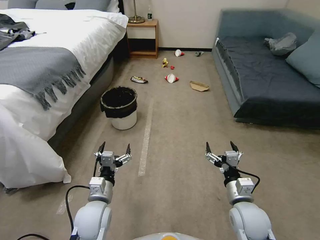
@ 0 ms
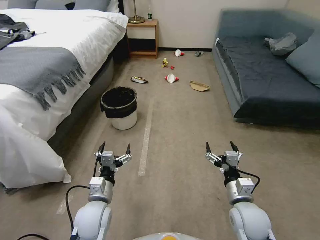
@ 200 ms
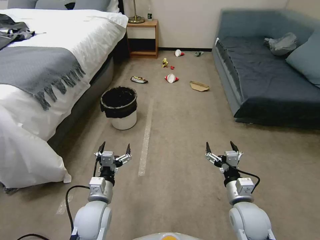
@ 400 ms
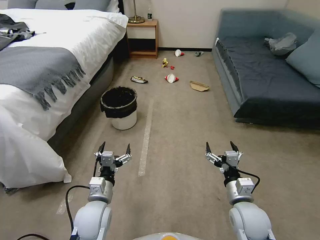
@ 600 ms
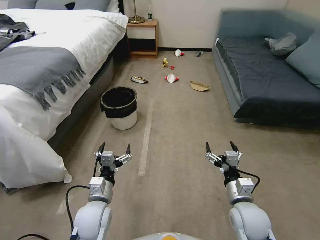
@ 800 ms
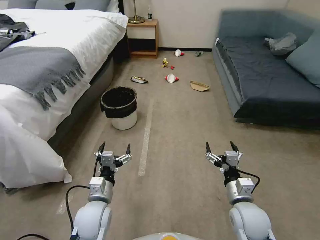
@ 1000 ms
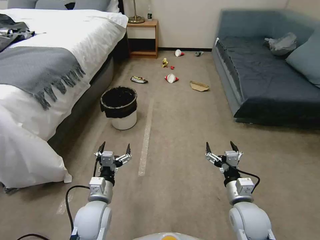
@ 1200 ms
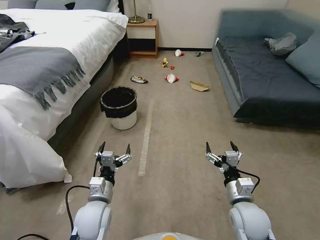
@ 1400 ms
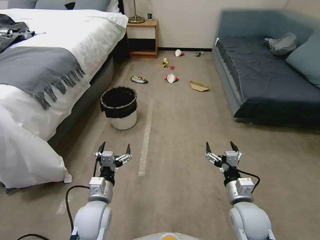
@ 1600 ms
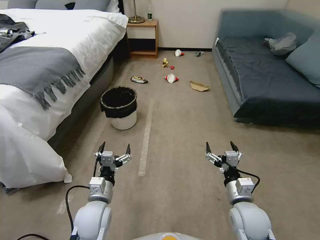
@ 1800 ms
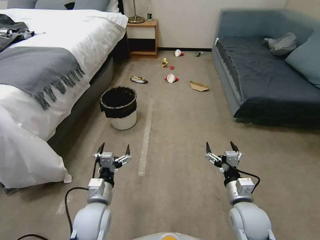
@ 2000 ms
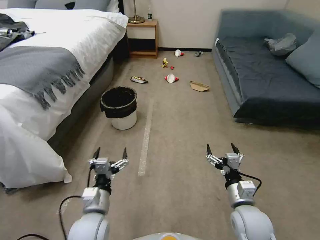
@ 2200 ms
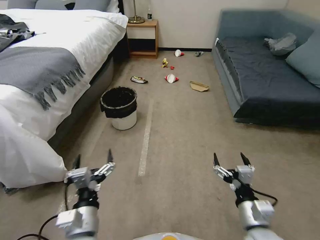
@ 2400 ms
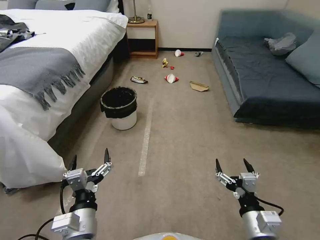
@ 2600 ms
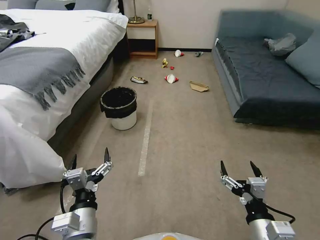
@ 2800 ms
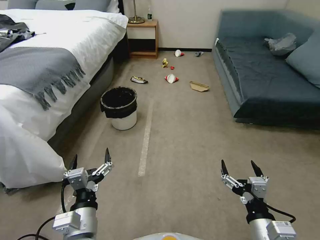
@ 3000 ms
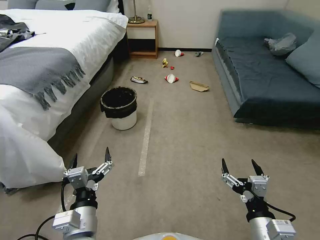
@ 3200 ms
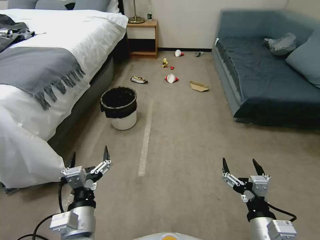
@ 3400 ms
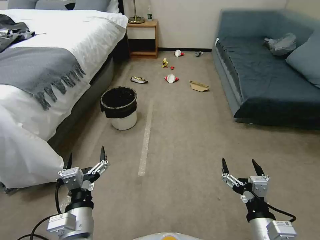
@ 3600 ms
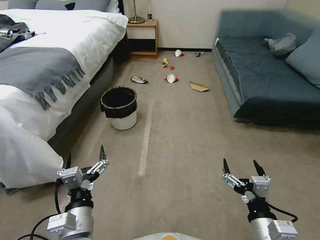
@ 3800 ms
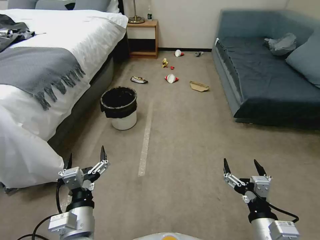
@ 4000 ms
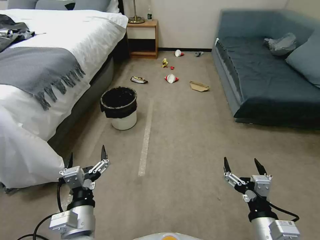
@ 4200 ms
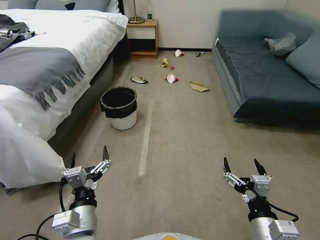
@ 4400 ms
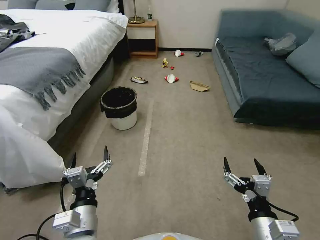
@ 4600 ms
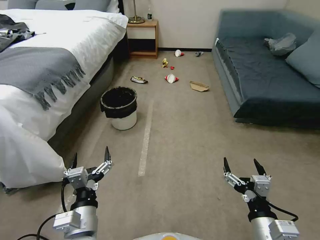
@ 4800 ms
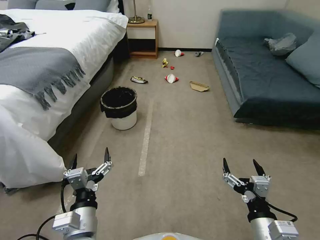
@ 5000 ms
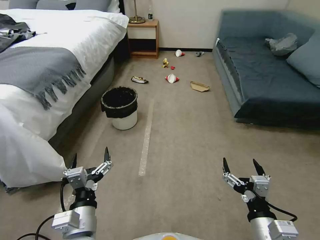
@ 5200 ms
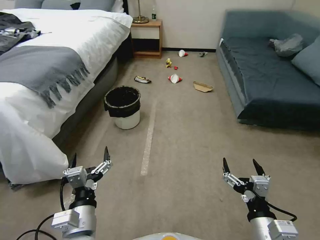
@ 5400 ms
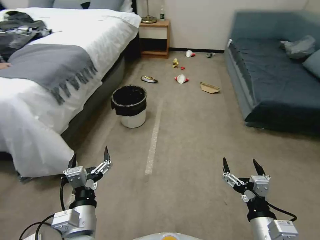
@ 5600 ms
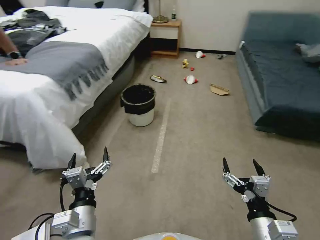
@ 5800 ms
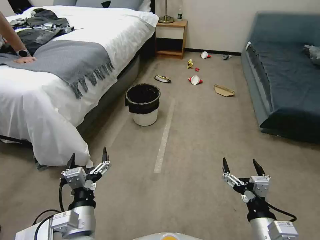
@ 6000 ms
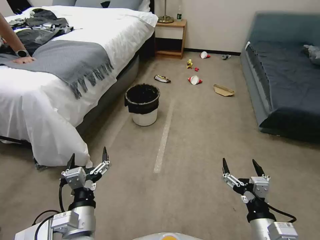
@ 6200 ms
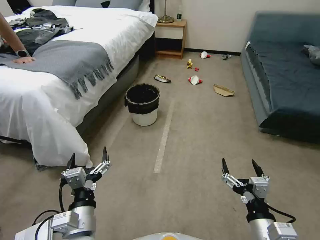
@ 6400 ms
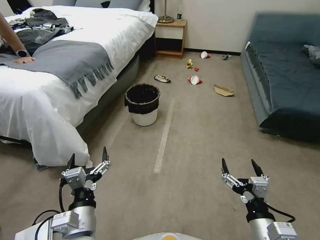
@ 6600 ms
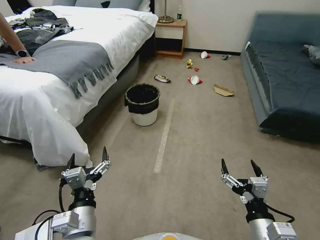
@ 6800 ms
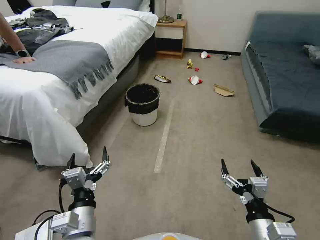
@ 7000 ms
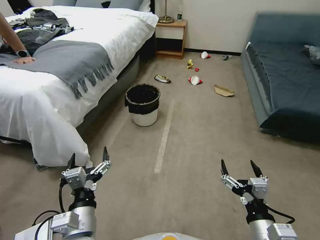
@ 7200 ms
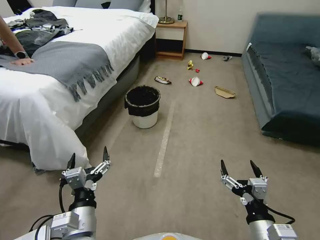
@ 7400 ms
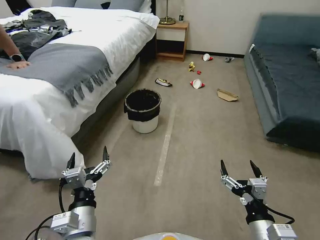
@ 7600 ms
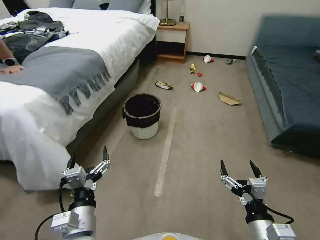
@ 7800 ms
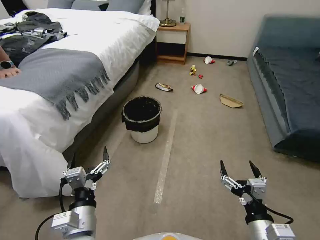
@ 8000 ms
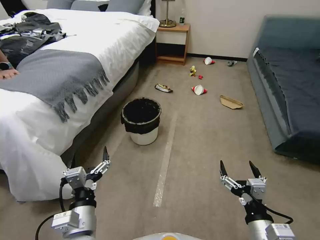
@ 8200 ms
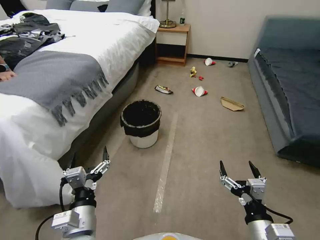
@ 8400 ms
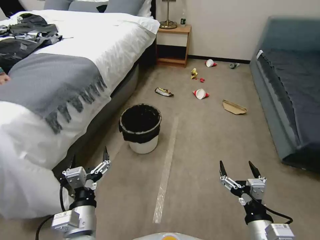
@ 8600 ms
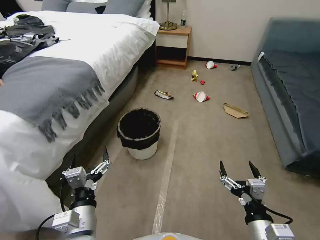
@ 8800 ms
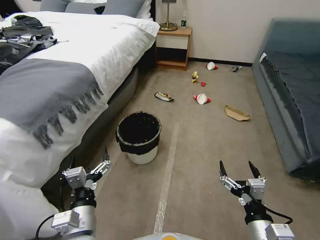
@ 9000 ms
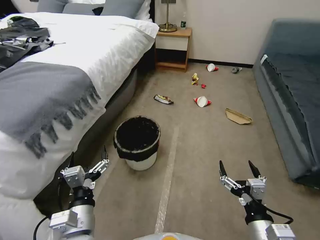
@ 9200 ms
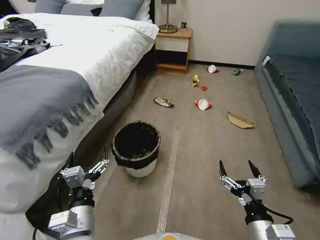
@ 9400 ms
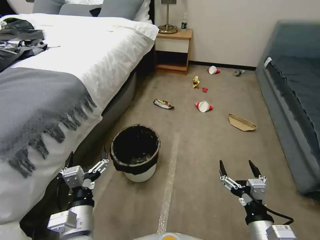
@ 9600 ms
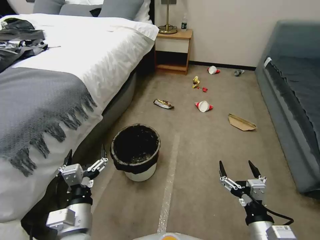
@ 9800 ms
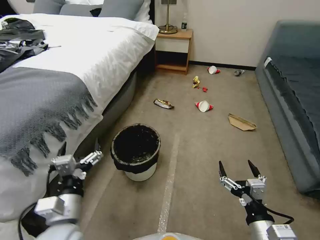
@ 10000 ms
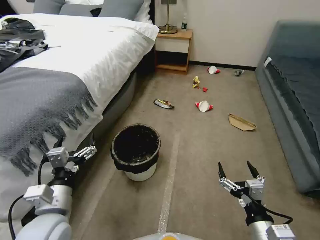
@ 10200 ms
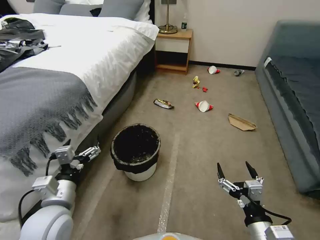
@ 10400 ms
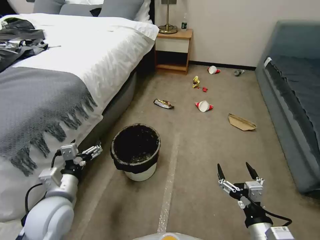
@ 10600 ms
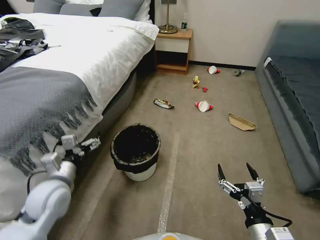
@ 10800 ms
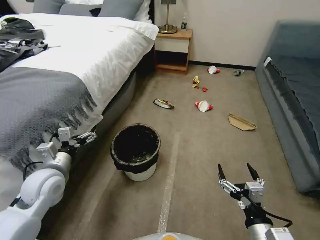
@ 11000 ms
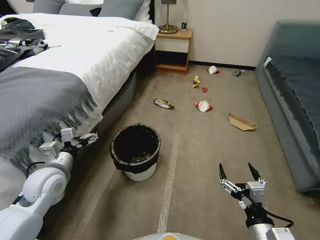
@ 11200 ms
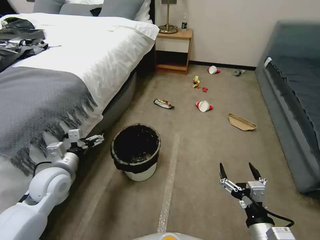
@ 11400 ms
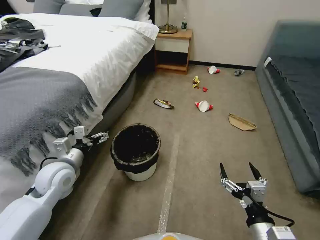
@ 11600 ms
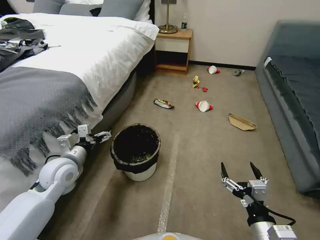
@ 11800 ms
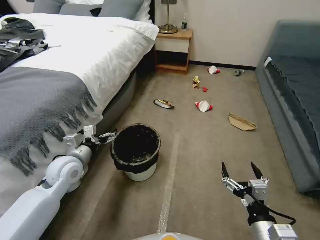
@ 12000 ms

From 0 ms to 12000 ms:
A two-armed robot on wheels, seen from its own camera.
Task of the whole recording: Pick up the trash can from the floor.
From 1600 ms to 3000 ms: The two grippers go about 10 cm backward and upward.
From 3000 ms to 4400 ms: Both grippers stay about where they are.
From 9000 ms to 10400 ms: The left gripper shifts about 5 cm to the left.
From 10400 ms to 12000 ms: The left gripper moves forward, approximately 15 cm.

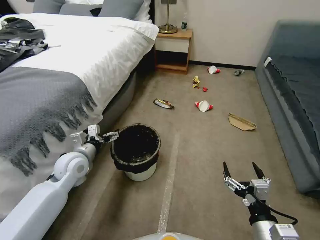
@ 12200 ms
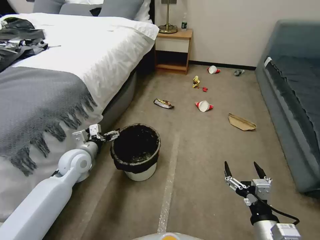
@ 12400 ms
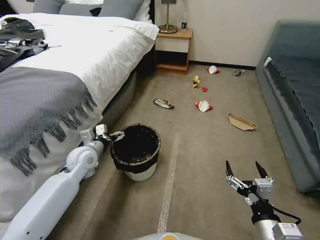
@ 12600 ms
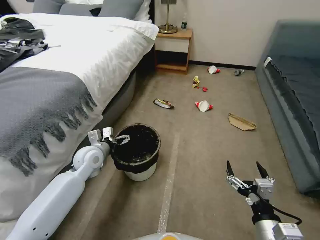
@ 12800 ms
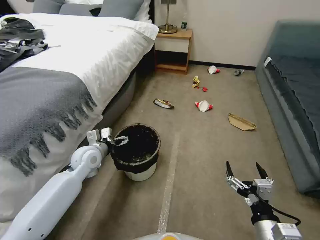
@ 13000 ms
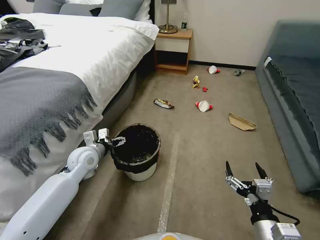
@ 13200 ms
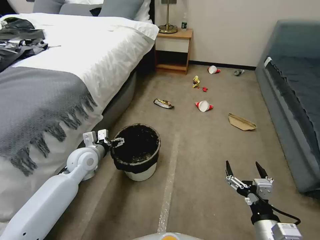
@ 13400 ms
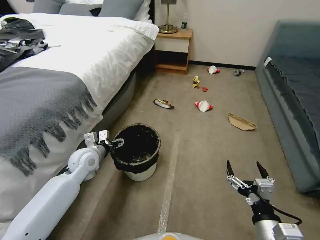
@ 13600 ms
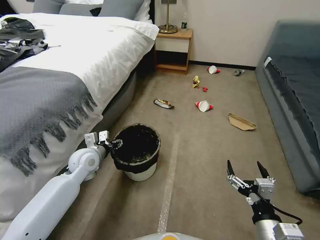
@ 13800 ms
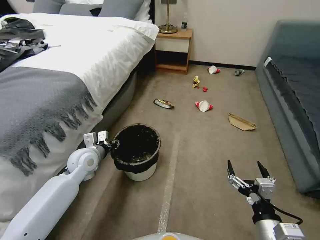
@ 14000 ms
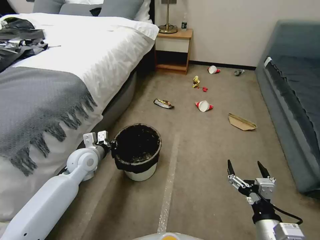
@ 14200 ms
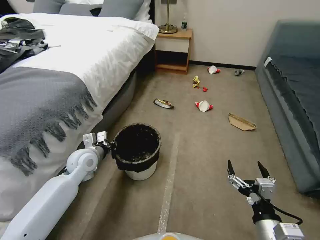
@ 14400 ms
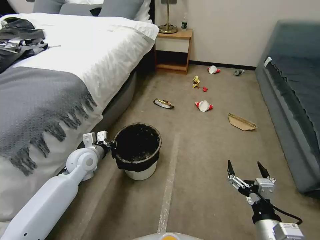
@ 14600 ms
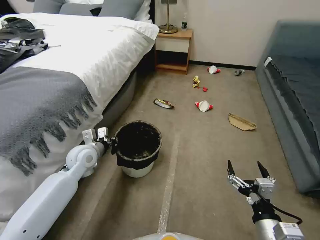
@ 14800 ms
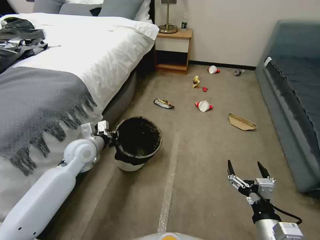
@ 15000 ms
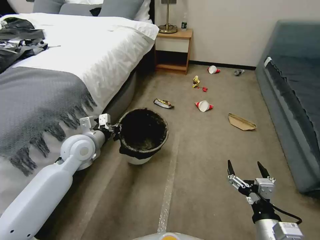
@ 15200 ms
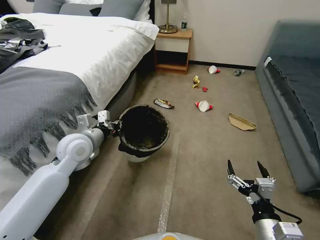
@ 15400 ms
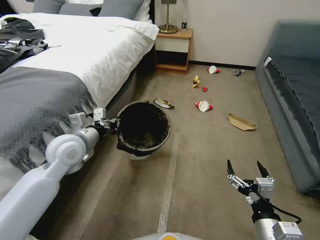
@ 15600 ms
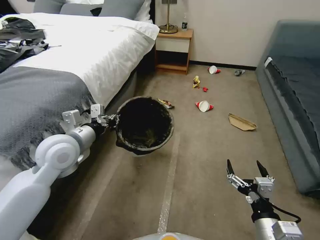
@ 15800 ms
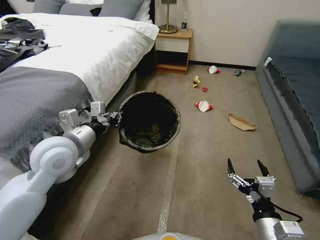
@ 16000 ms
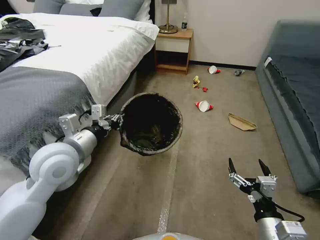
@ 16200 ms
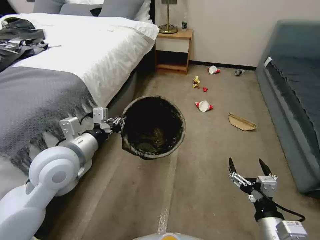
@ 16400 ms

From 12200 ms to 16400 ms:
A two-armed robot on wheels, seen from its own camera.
Task of the whole recording: Pick up the trash can from the floor.
From 12200 ms to 13600 ms: The grippers make only small movements.
From 13600 ms to 15000 ms: The left gripper closes.
From 15000 ms to 16400 ms: The left gripper goes some 15 cm upward and backward.

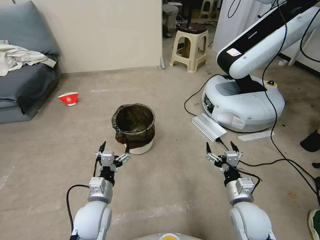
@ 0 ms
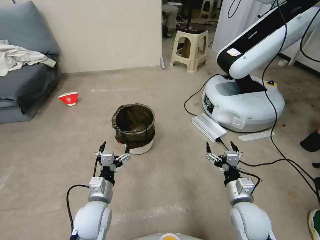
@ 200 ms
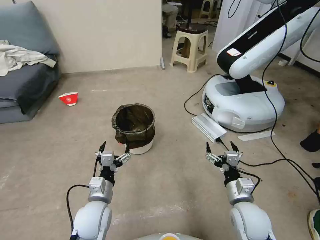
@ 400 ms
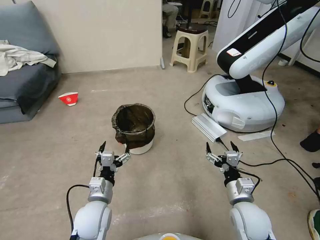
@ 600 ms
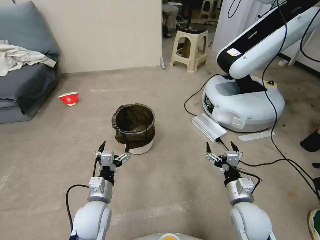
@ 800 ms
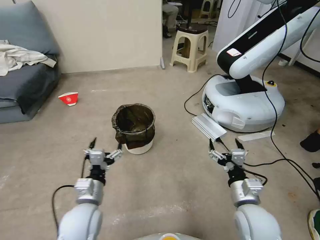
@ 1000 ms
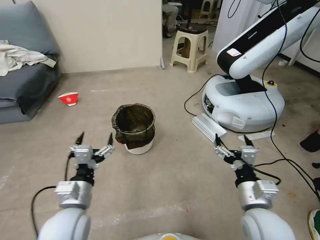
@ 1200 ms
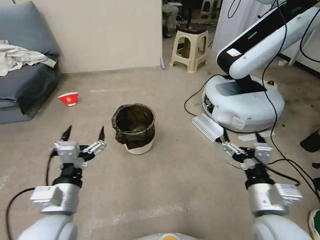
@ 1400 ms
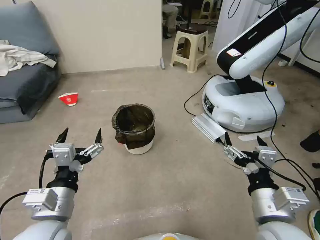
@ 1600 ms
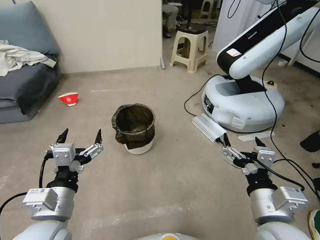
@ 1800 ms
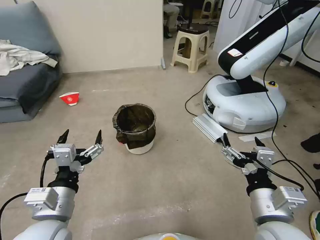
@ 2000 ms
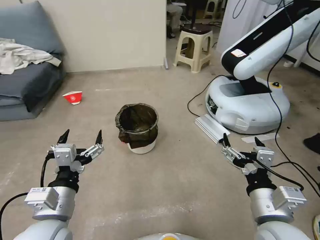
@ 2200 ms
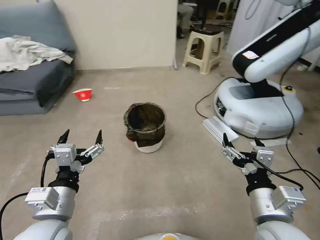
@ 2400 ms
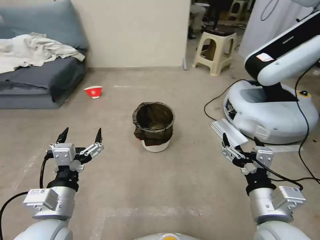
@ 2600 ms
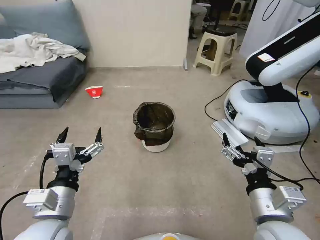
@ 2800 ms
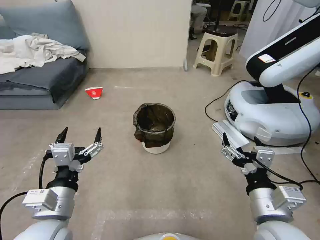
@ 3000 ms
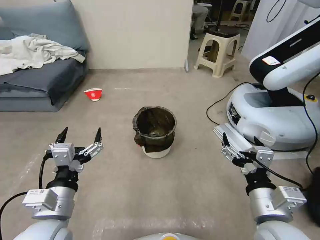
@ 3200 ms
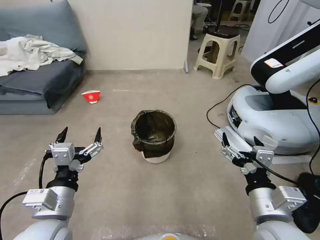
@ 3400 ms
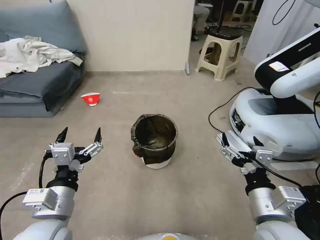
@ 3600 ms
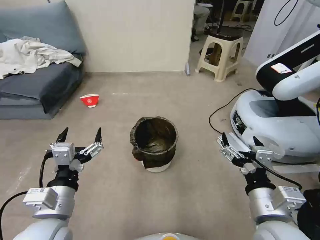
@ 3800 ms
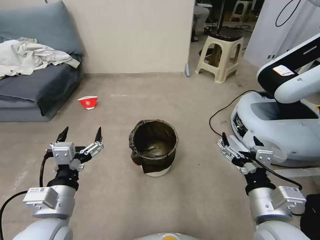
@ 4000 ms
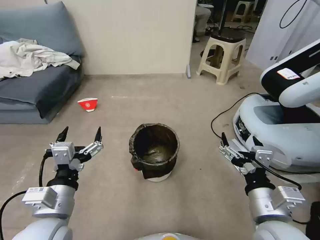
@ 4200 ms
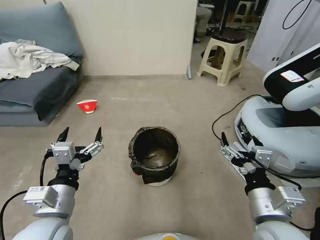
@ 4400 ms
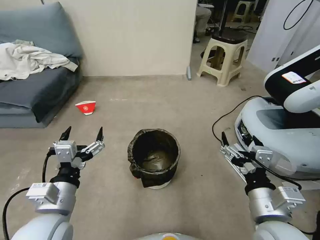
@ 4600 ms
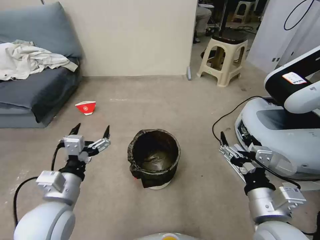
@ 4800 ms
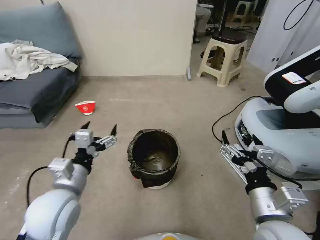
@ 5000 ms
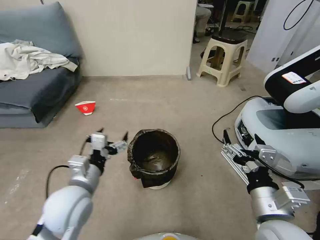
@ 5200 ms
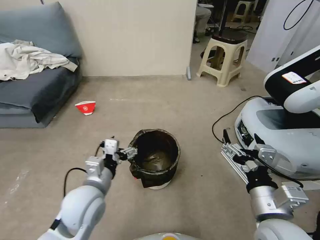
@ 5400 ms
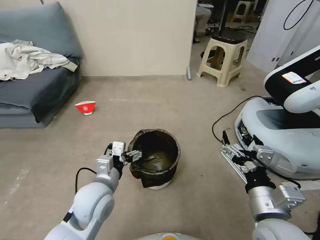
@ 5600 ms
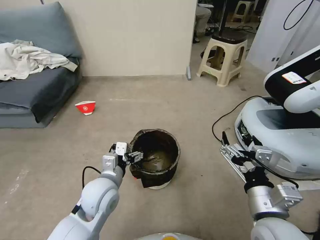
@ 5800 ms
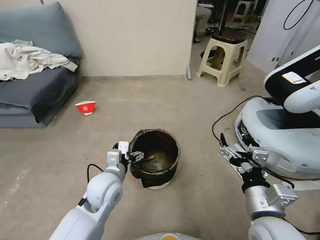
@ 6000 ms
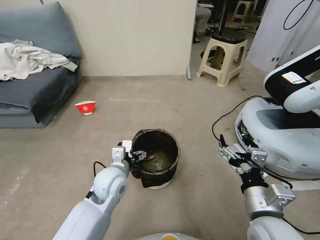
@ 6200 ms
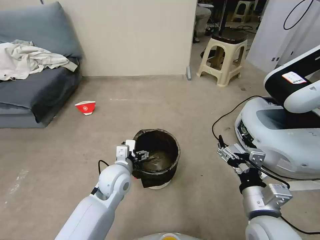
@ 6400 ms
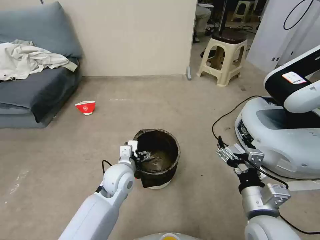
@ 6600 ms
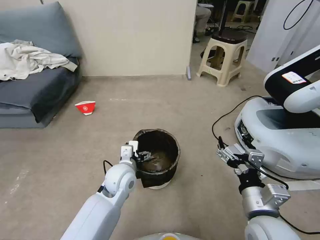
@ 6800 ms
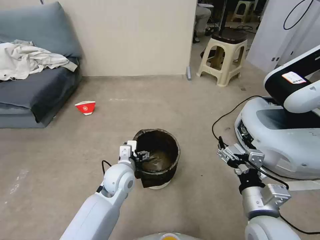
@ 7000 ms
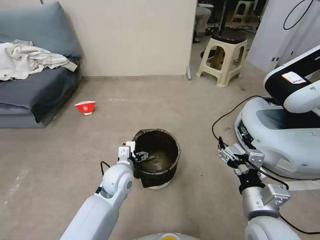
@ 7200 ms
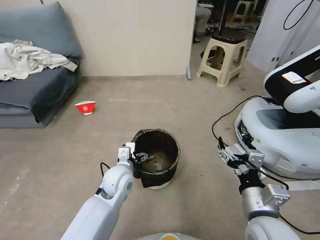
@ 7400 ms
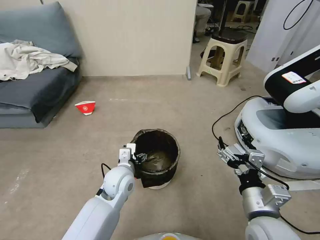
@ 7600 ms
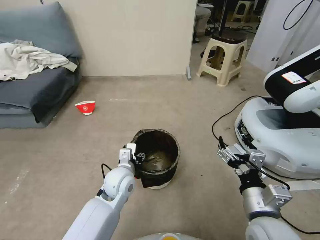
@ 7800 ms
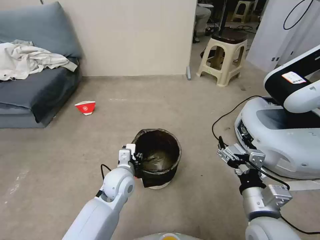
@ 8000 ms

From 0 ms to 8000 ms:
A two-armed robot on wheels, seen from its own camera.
Task of the whole recording: Pick up the trash can from the floor.
From 4800 ms to 6400 ms: The left gripper goes some 20 cm forward, to the right and downward.
From 6400 ms to 8000 ms: The left gripper closes up.
